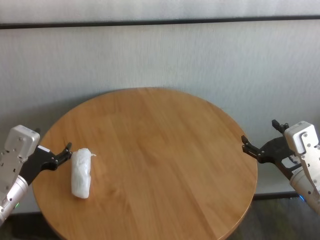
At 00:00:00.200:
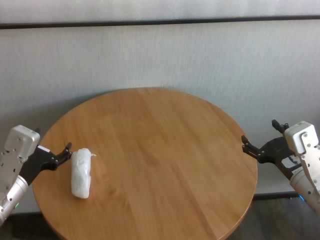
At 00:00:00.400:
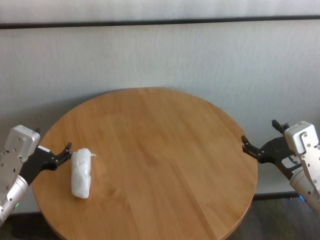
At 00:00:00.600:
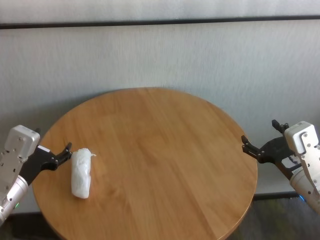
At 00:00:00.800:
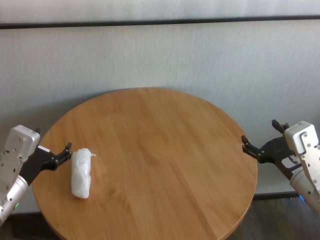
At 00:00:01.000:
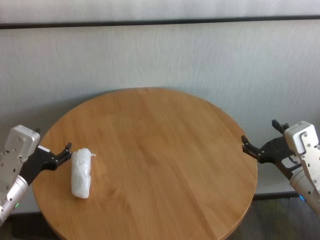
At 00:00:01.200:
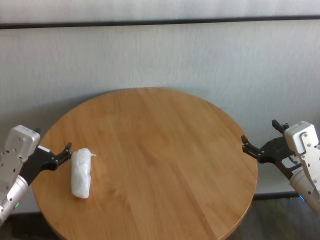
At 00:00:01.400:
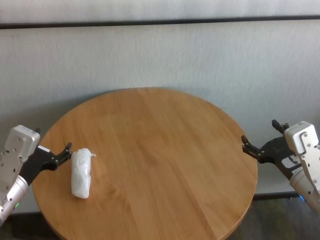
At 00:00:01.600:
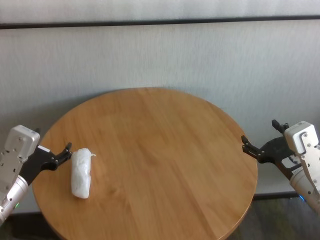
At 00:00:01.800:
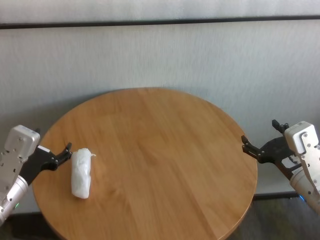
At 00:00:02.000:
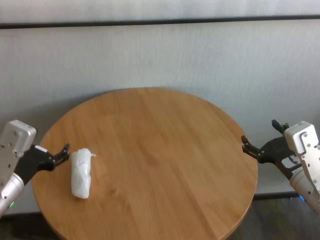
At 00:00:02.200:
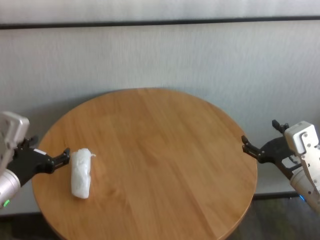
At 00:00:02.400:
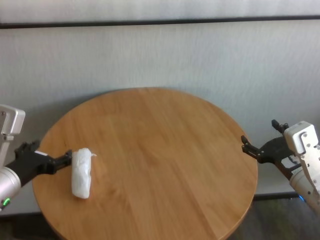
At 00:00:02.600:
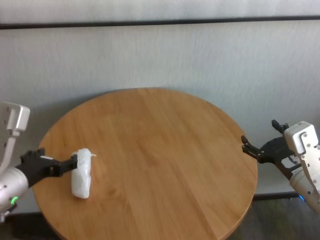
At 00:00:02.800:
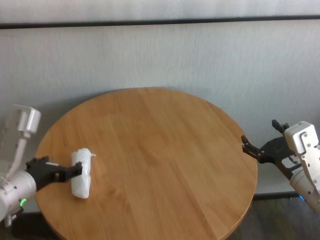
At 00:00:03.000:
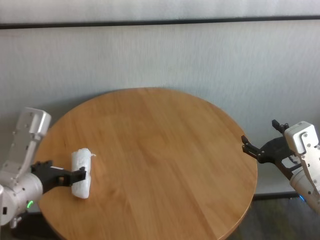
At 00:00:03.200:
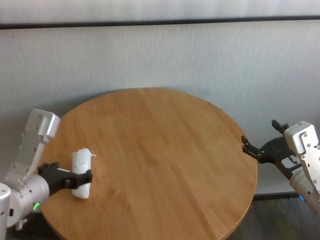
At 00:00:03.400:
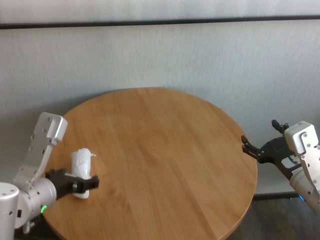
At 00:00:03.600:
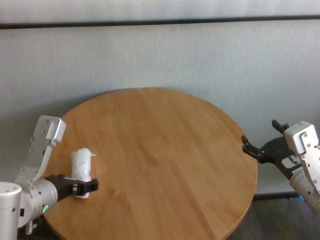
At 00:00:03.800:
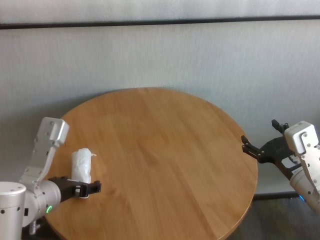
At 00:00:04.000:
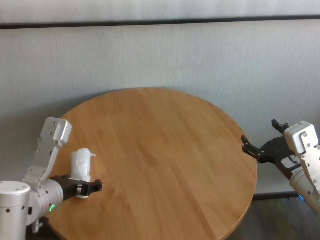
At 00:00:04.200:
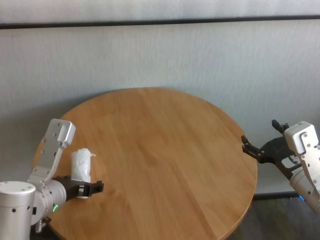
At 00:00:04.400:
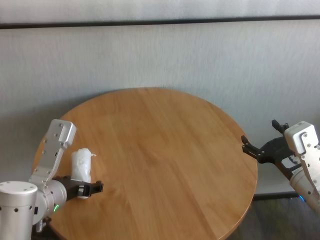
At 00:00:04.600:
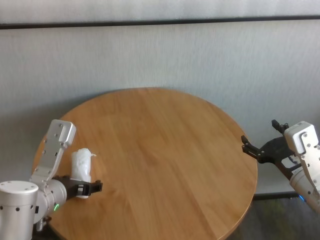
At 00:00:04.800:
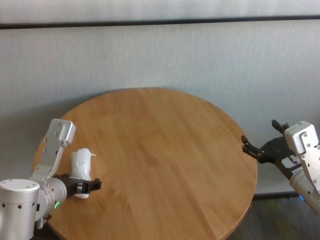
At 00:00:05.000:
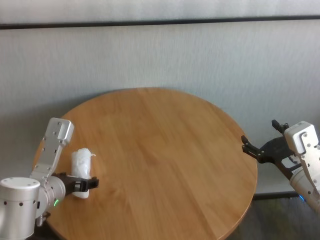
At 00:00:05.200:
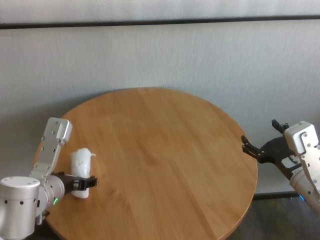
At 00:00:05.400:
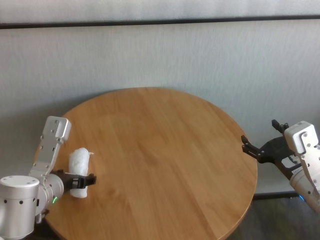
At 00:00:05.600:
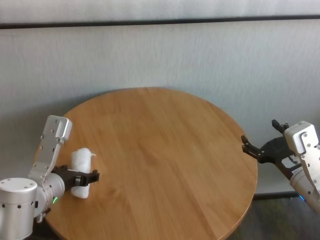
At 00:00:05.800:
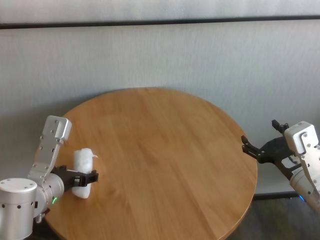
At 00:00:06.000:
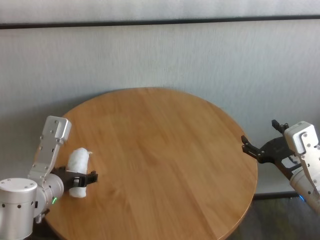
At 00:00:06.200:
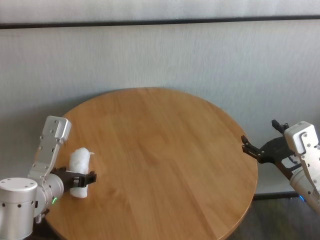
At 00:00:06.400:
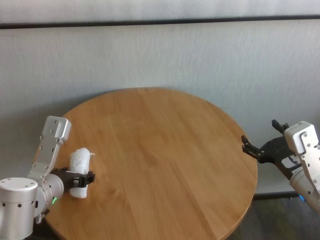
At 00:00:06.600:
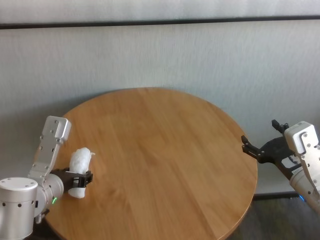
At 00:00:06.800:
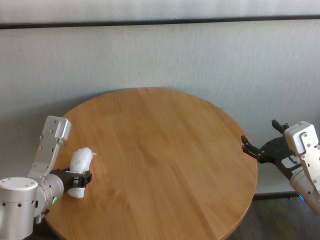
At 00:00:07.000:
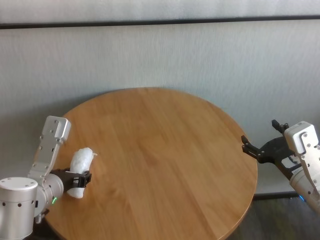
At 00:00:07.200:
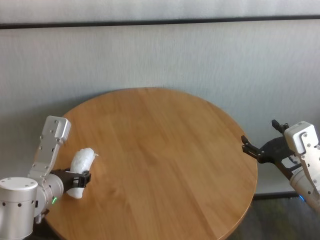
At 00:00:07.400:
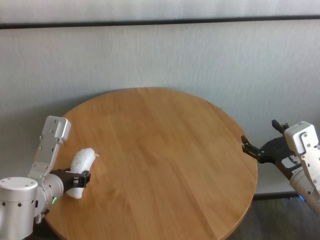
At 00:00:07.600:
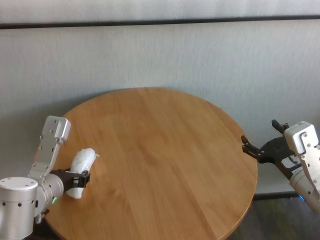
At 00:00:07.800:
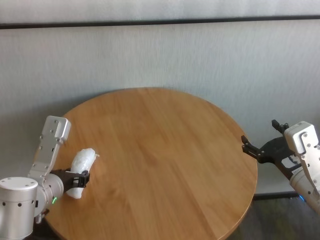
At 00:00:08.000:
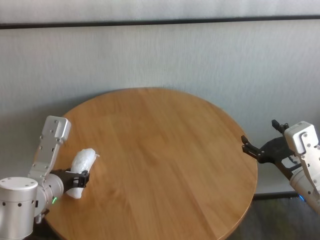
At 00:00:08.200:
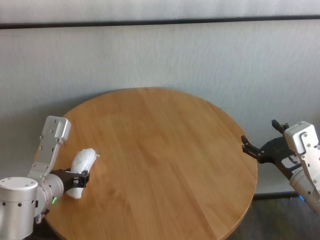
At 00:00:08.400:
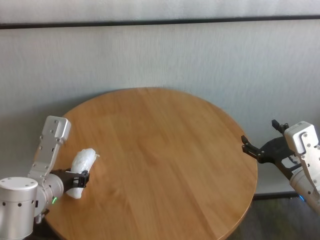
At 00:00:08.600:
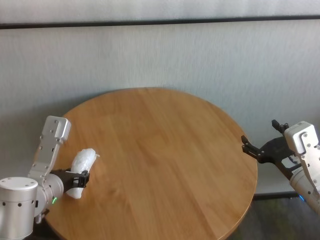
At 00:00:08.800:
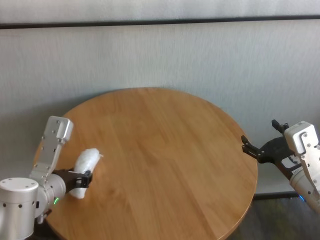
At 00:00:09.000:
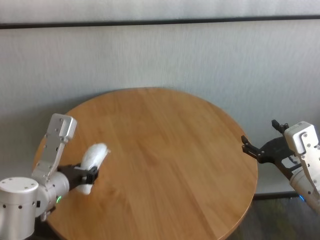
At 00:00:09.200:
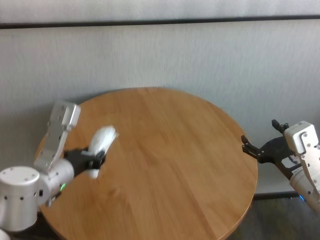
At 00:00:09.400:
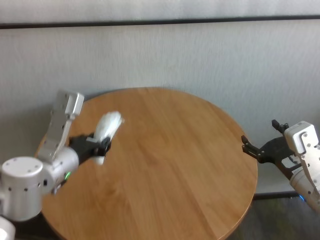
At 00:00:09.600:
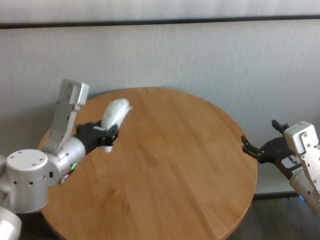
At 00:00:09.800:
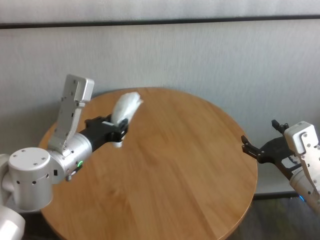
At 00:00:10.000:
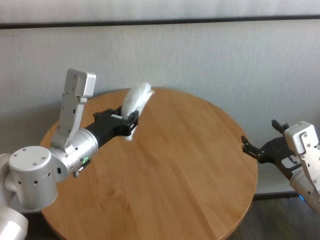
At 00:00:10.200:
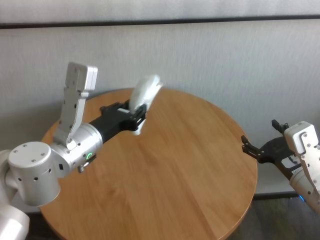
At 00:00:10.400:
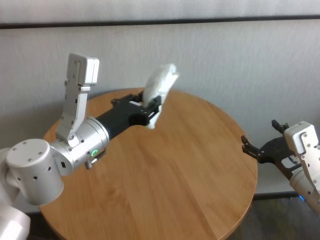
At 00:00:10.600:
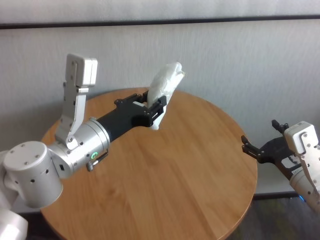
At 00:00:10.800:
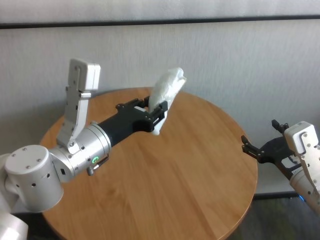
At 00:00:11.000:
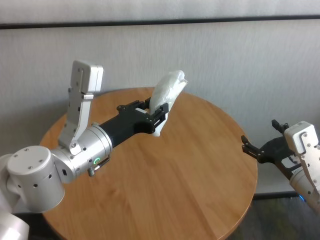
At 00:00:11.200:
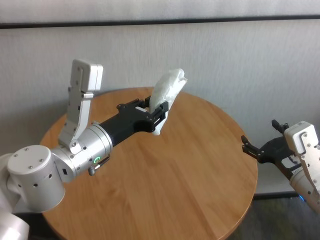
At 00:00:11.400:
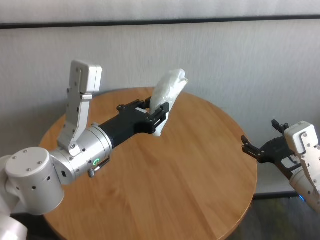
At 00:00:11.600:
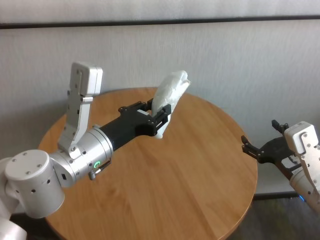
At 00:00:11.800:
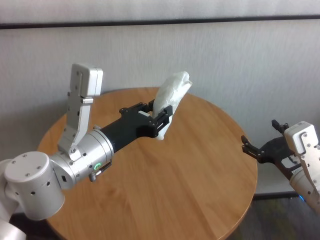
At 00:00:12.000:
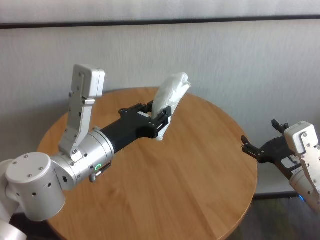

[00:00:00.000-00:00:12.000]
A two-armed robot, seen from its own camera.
Task of the whole recording: One hand took the sandbag from the other hand and placed it on the table.
Step, 00:00:00.000 to 00:00:07.800: Grasp the paper ball with left gripper.

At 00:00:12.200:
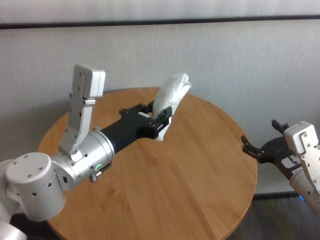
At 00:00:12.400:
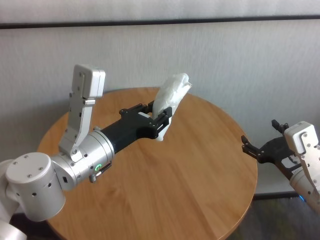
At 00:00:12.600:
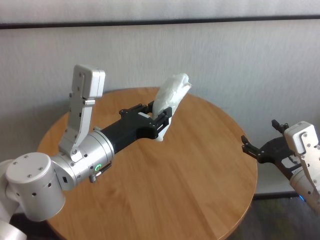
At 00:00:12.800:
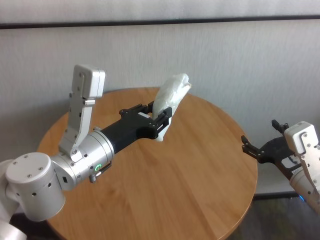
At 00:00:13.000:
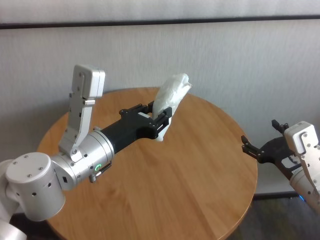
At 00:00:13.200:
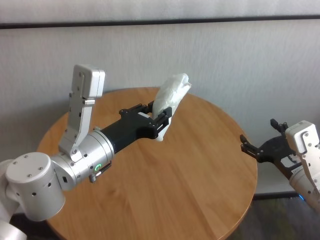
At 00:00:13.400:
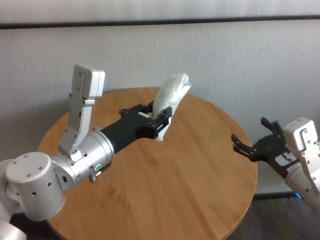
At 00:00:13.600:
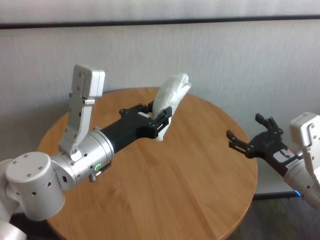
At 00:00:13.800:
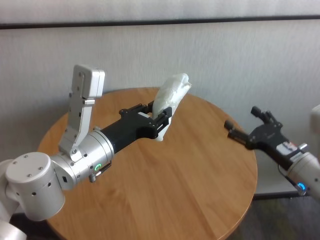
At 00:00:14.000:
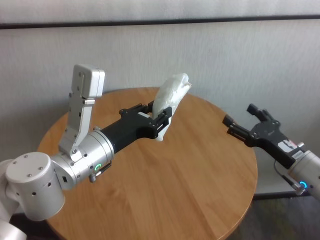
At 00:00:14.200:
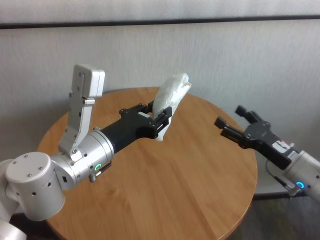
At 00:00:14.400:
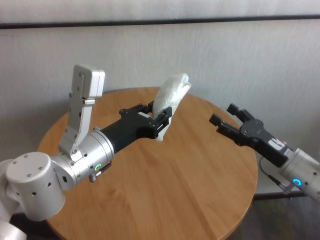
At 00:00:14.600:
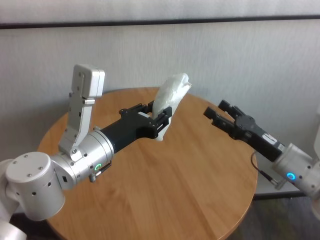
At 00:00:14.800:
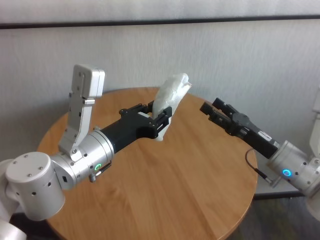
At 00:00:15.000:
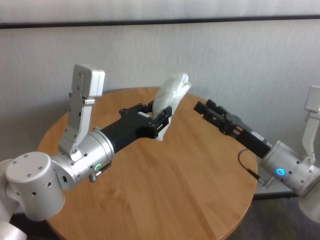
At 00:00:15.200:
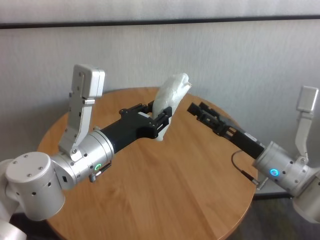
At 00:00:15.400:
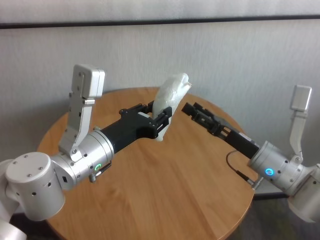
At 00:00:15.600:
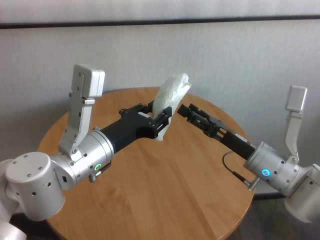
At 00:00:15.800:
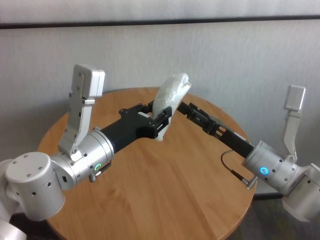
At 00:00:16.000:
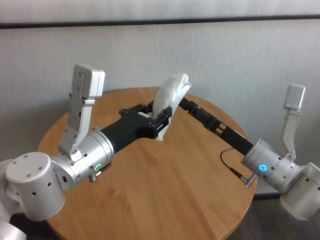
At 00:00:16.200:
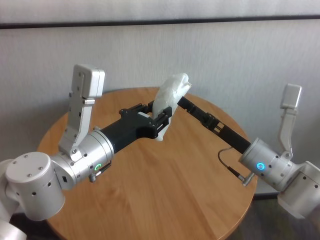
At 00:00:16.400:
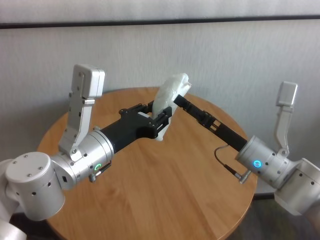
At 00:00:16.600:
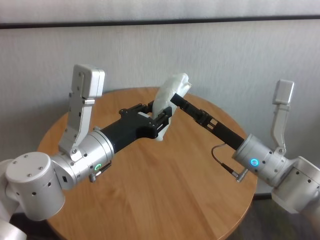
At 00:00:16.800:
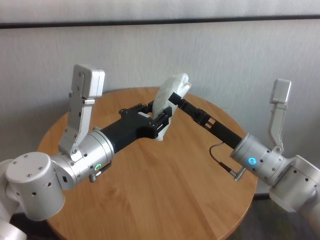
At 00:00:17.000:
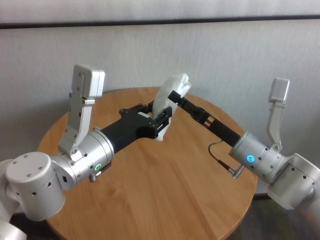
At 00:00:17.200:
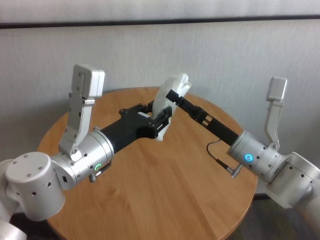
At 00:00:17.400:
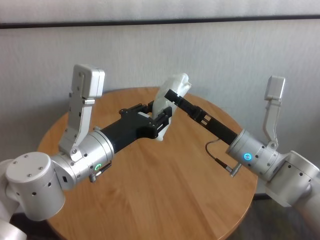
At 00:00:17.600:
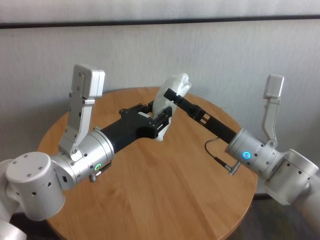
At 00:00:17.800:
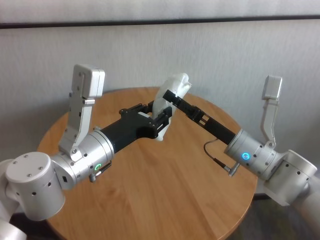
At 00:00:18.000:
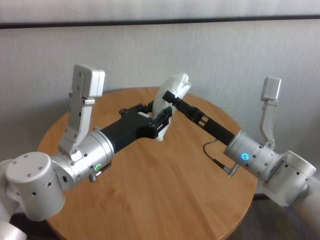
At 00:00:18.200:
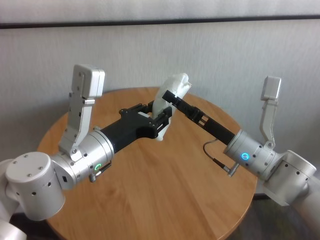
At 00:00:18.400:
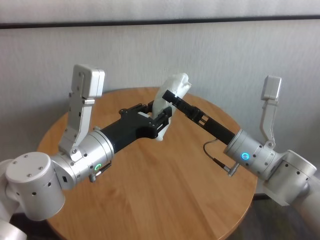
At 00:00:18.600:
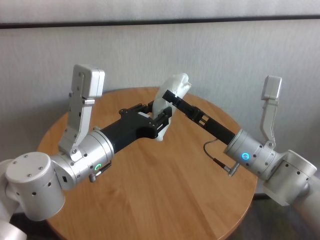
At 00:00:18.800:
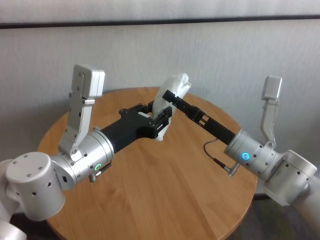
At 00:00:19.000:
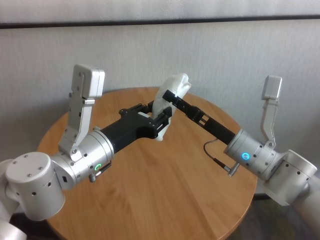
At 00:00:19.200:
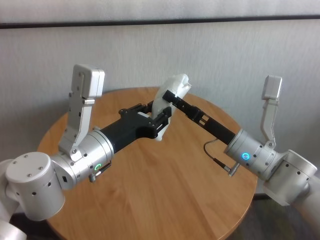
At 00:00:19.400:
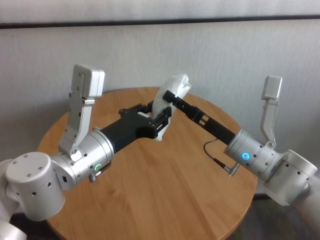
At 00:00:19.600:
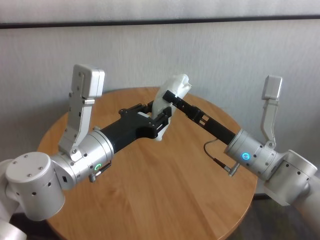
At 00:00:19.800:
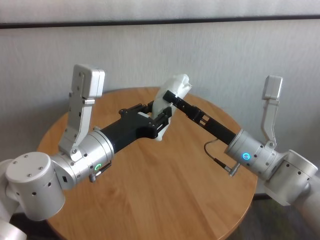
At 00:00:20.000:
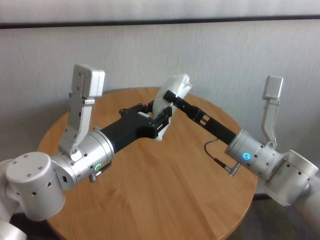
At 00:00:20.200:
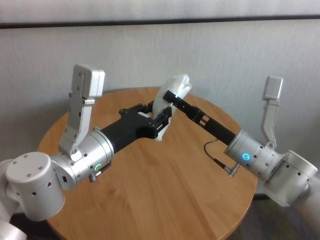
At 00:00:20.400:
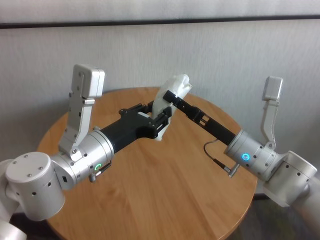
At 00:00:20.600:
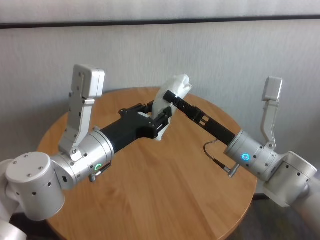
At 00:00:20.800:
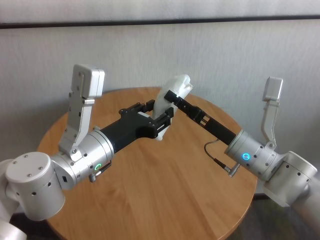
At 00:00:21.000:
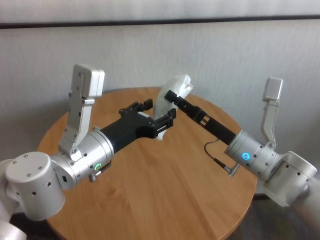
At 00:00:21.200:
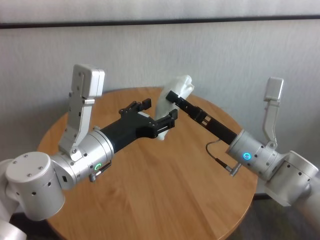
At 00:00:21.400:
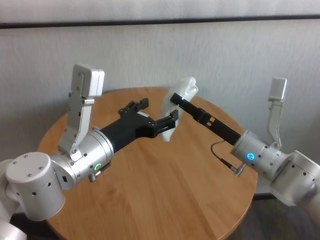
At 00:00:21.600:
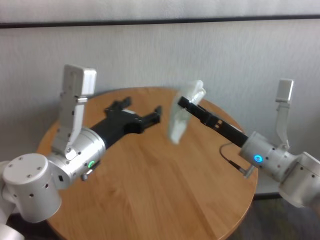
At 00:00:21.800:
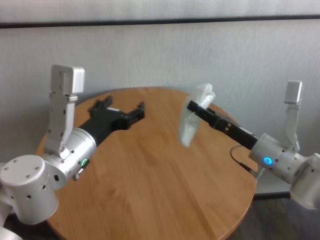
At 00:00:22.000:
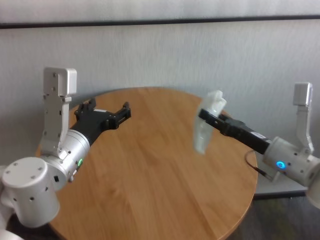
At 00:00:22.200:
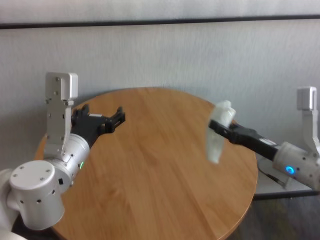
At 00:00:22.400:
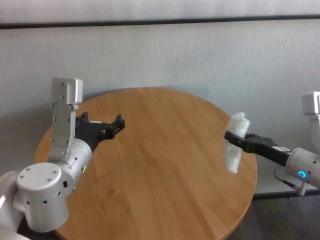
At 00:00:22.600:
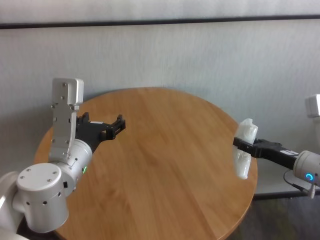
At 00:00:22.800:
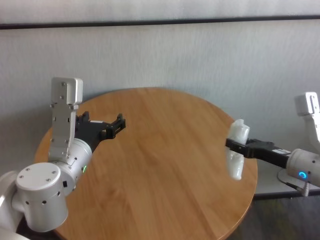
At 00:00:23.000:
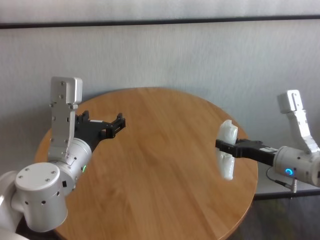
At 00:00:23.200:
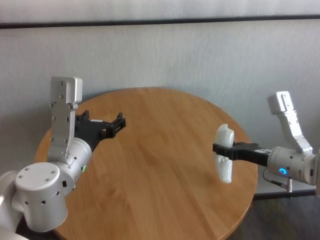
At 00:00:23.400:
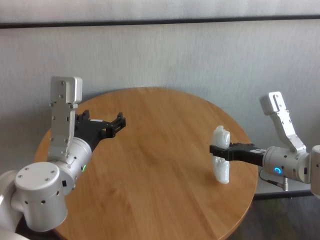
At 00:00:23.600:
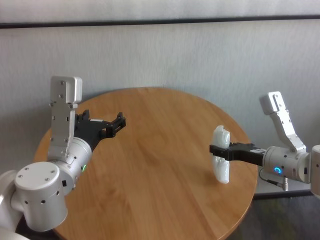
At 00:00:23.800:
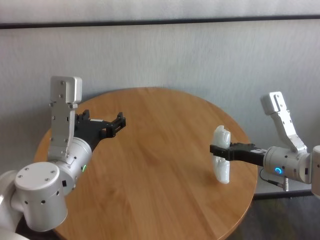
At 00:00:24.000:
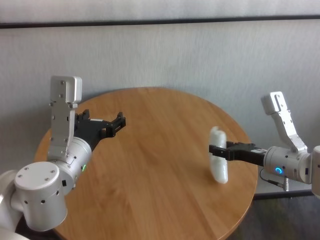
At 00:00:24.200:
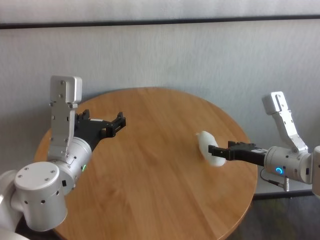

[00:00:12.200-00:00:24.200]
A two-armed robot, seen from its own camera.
Task of the whole recording: One hand took the sandbag from the other hand and placed it on the table.
Step, 00:00:12.200 to 00:00:21.400: Pass the paper ball to the right gripper.
